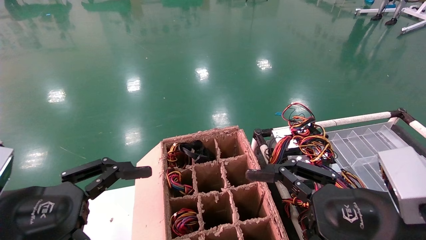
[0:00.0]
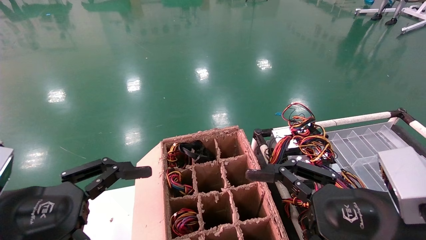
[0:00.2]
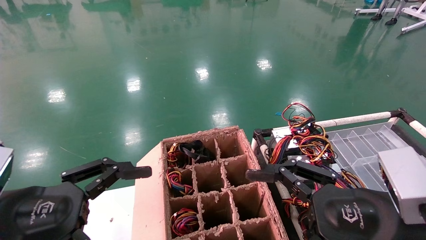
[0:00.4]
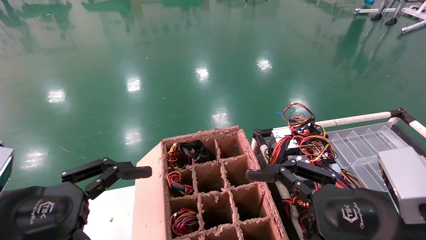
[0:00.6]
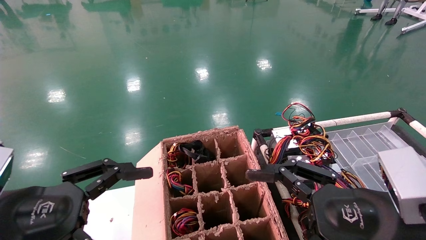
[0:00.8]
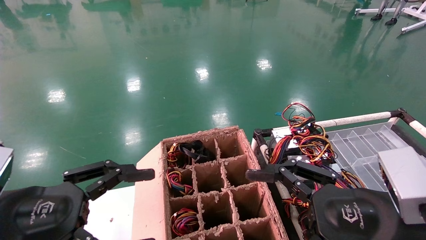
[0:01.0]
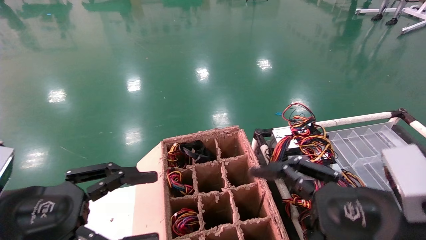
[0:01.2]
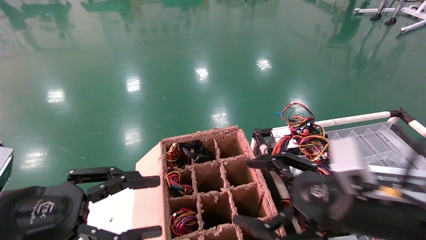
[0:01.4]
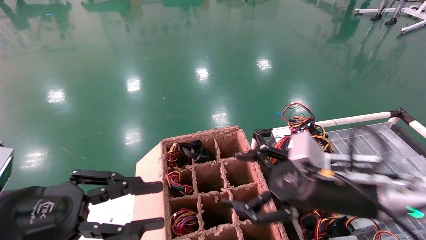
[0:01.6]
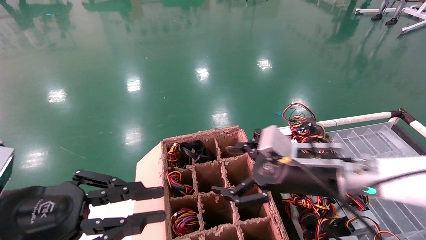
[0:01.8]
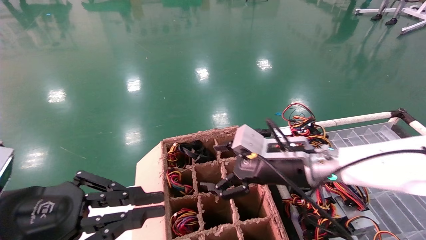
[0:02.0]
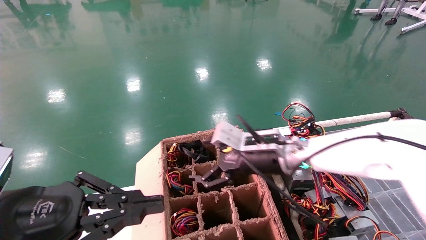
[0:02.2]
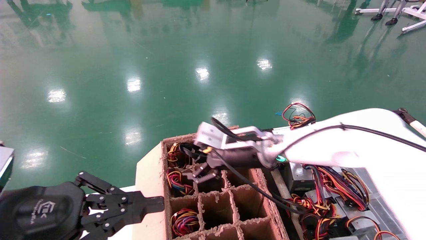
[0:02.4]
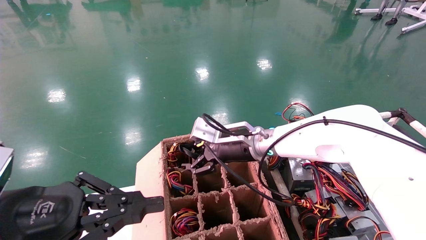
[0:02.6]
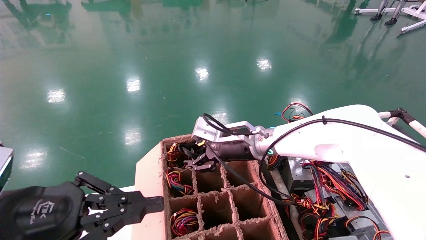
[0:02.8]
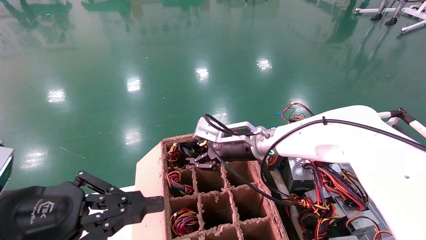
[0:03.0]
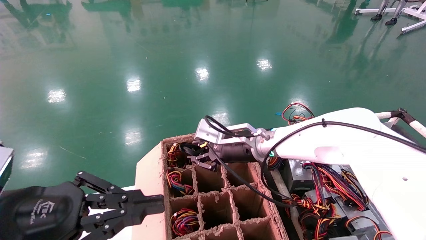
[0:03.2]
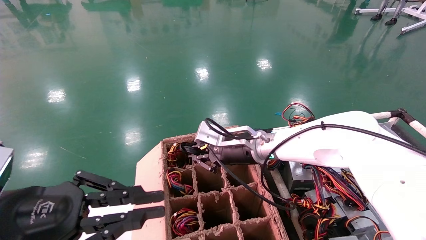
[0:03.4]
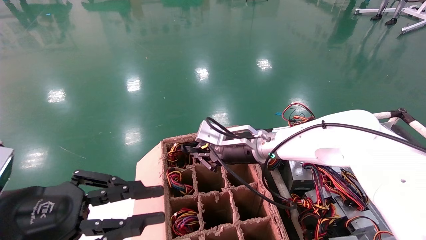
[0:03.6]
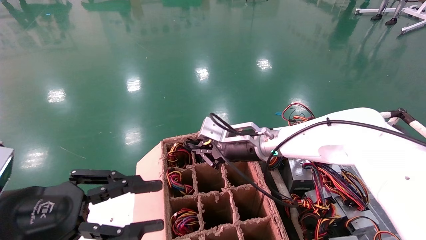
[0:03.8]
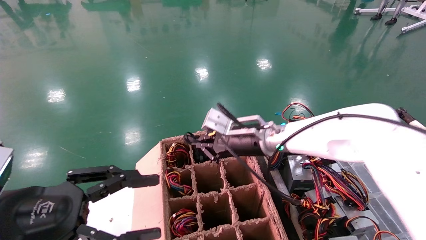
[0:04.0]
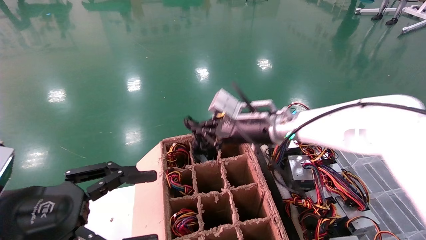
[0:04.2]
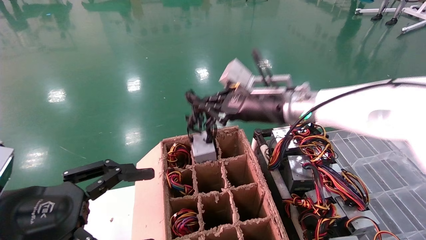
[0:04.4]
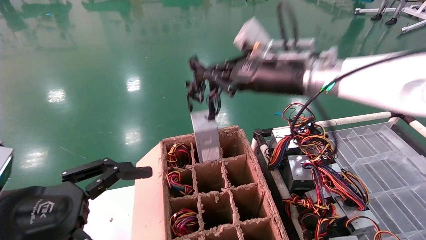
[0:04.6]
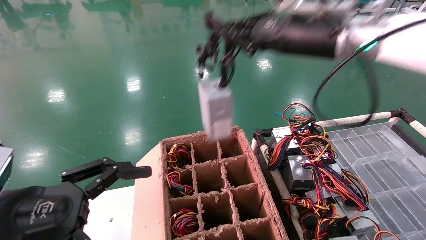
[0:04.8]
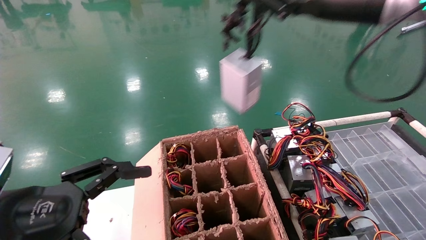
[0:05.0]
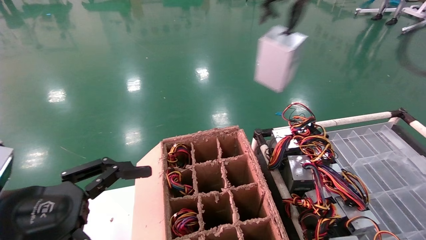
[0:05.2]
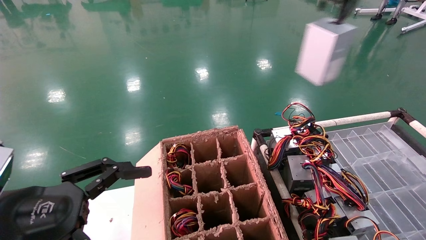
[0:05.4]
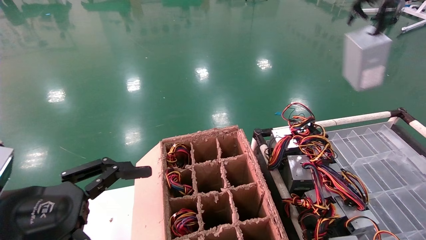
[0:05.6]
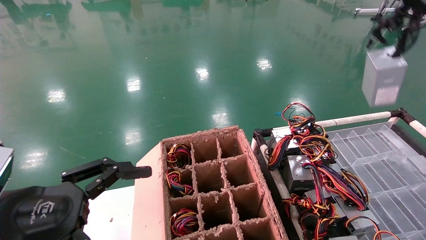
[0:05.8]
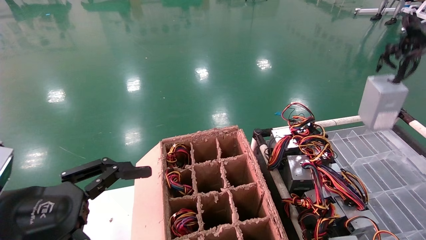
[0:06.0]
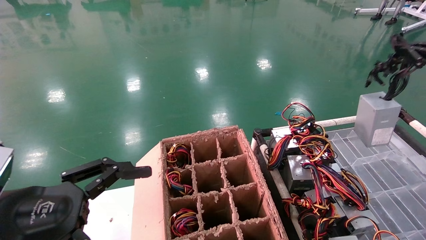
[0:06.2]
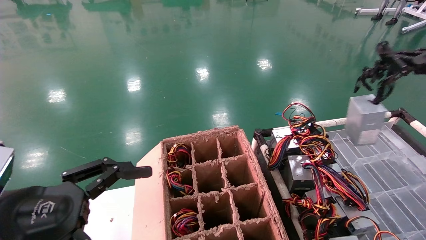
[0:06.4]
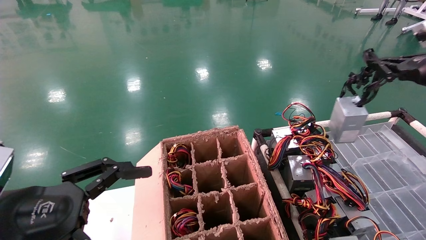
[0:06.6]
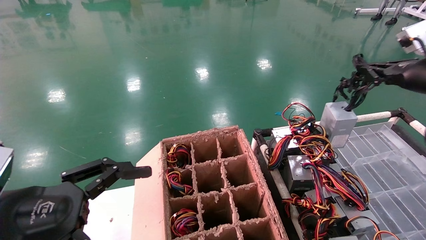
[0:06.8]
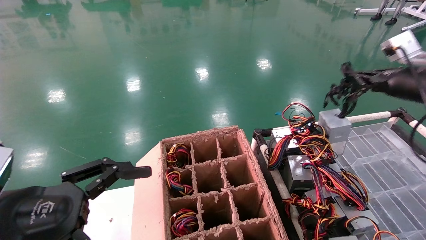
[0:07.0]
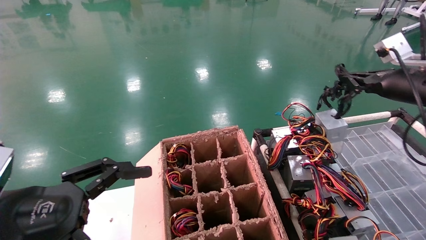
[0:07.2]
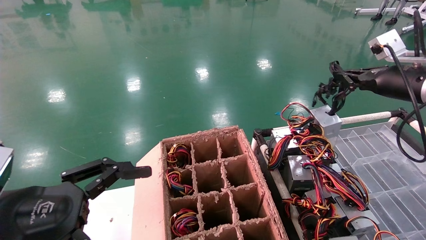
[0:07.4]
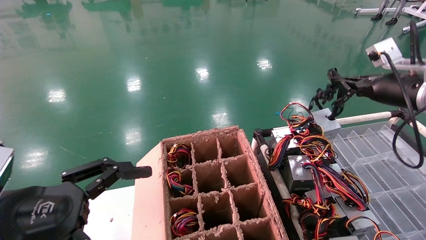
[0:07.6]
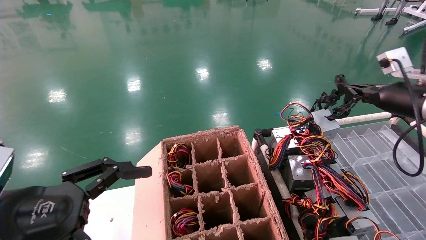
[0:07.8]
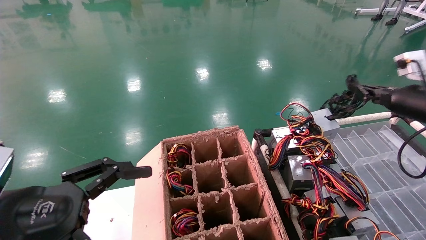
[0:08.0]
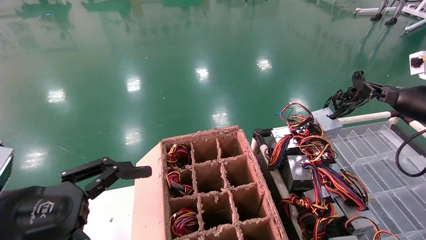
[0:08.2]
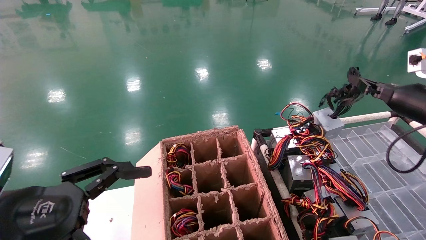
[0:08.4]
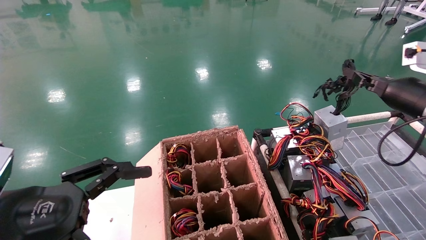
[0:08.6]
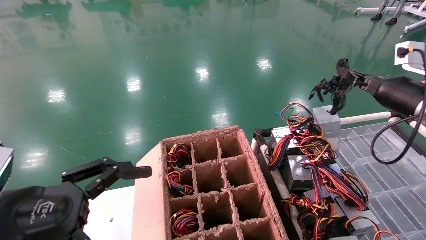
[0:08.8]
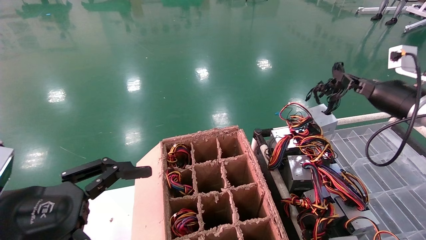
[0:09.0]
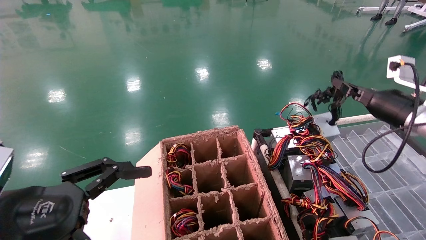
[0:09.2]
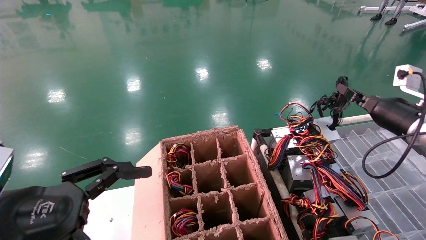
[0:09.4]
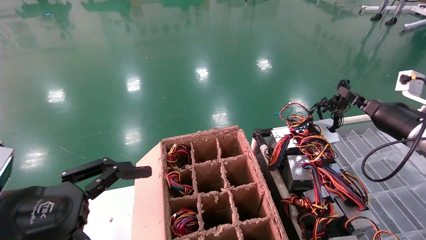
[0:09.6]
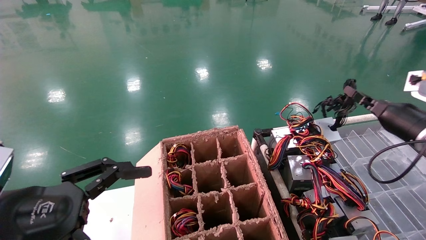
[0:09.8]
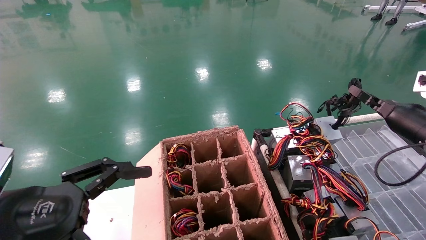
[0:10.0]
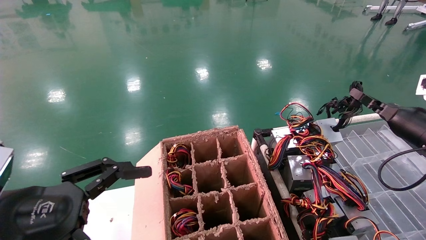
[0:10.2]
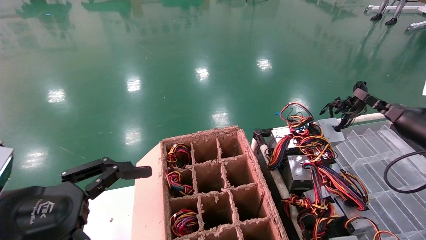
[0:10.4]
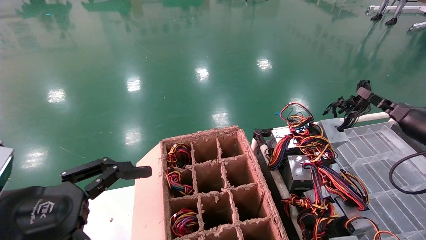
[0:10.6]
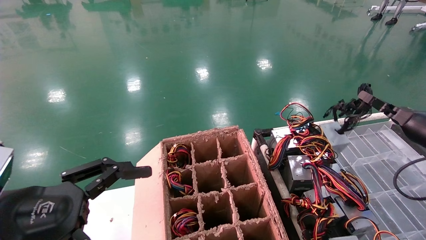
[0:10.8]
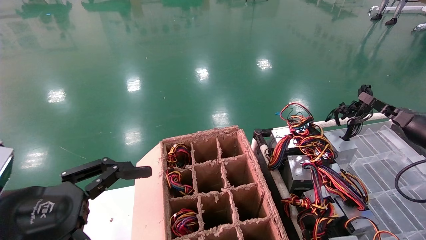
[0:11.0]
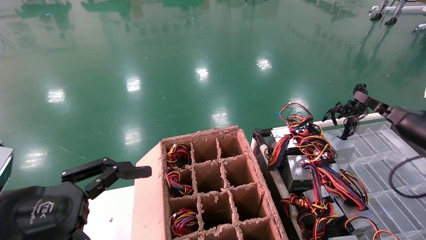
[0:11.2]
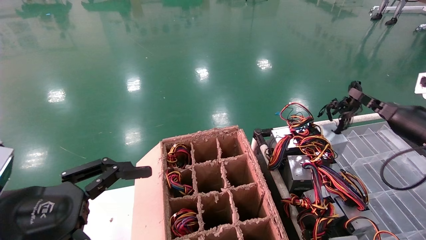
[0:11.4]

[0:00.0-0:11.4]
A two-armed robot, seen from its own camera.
Step, 0:01.0 to 0:03.6: Grab and lift the power supply from the large box.
0:00.0 to 0:01.4: The right gripper is displaced forward by some 5 cm.
0:01.4 to 0:02.8: The left gripper closes up. The right gripper is displaced forward and to the left by some 25 cm.
0:02.8 to 0:04.2: The right gripper travels upward by approximately 5 cm, and closes, while the left gripper opens up.
0:04.2 to 0:05.6: The left gripper opens up, while the right gripper goes approximately 40 cm to the right, upward and backward.
0:05.6 to 0:07.2: The right gripper goes about 20 cm downward and forward.
0:08.6 to 0:10.0: The right gripper goes approximately 5 cm downward.
0:10.0 to 0:11.4: The grippers move only a little.

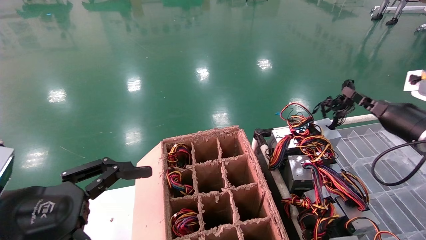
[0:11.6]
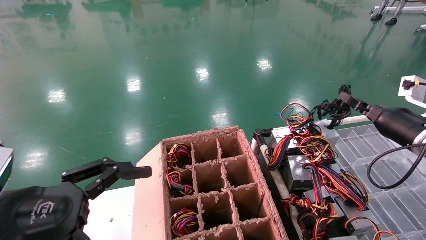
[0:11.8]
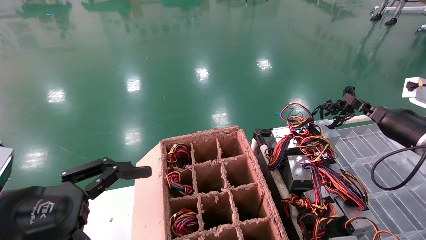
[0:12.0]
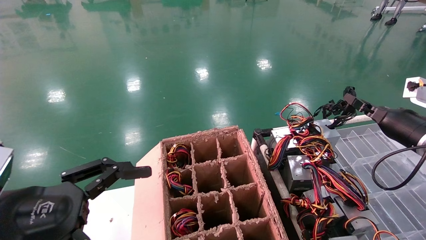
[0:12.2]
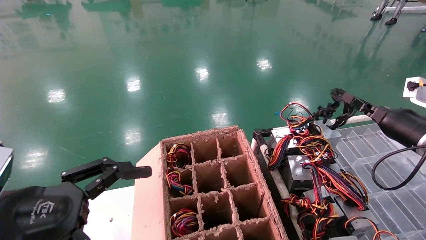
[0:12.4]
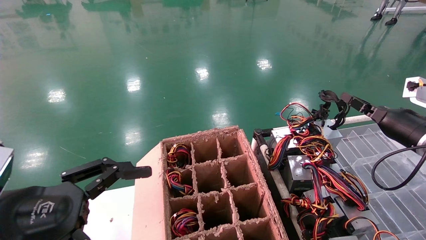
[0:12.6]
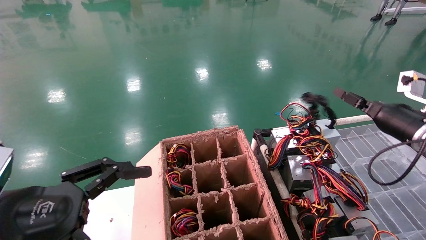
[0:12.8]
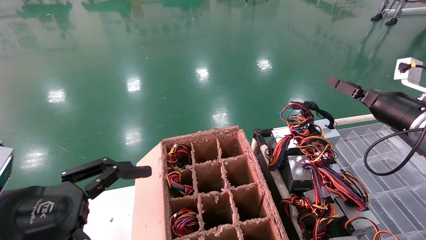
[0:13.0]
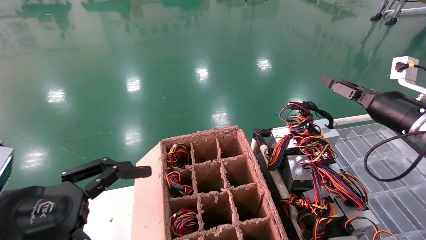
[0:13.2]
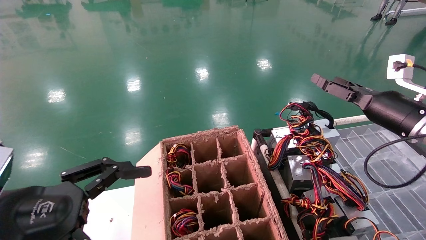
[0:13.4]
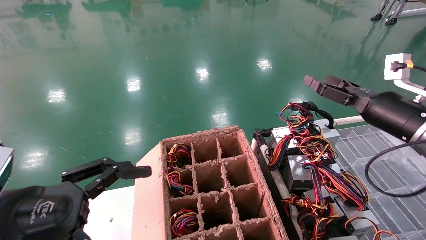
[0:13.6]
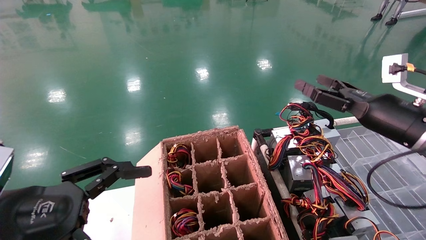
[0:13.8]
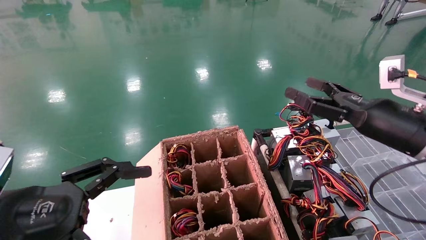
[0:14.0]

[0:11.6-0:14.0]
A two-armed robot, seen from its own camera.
0:11.6 to 0:12.8: The grippers move only a little.
0:12.8 to 0:14.0: The right gripper goes roughly 10 cm to the left and backward, and opens.
